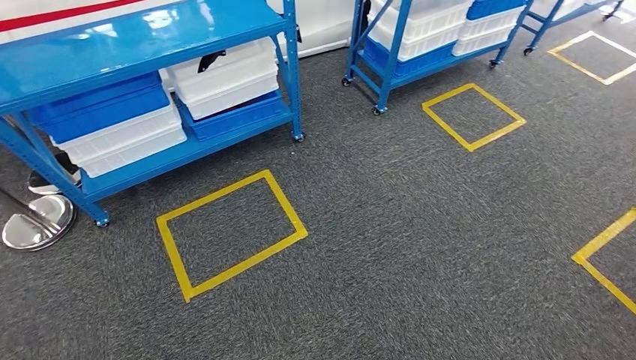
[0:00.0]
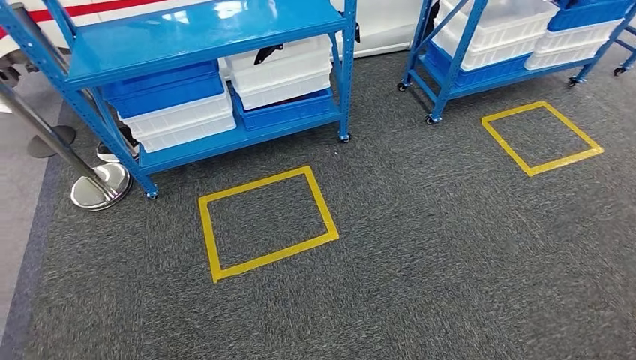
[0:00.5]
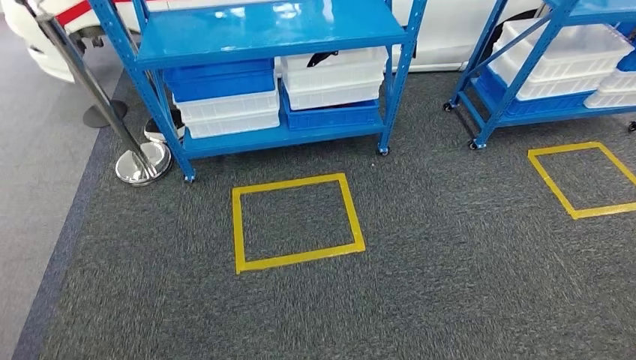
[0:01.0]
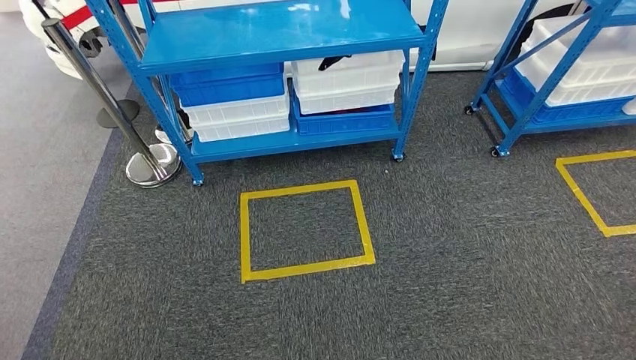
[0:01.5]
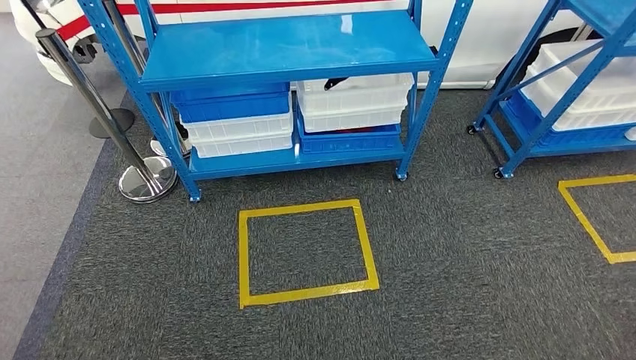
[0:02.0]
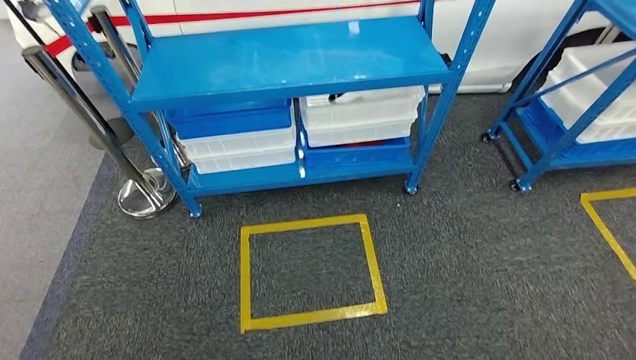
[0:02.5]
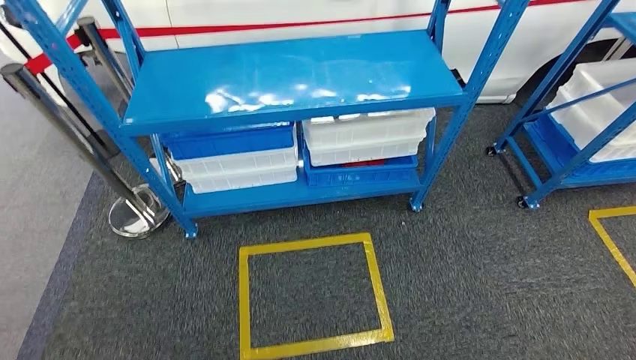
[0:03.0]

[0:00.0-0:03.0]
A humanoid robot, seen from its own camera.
Step, 0:00.0 to 0:03.0: Move to the initial position of the shelf.

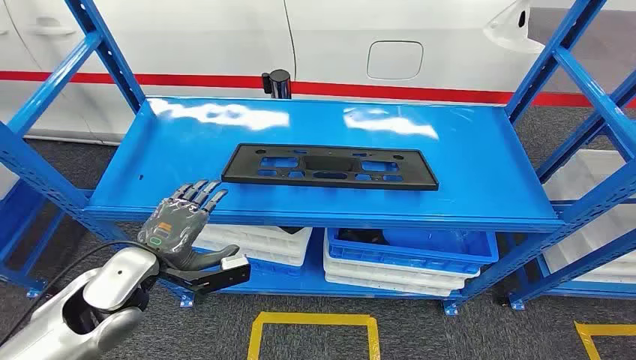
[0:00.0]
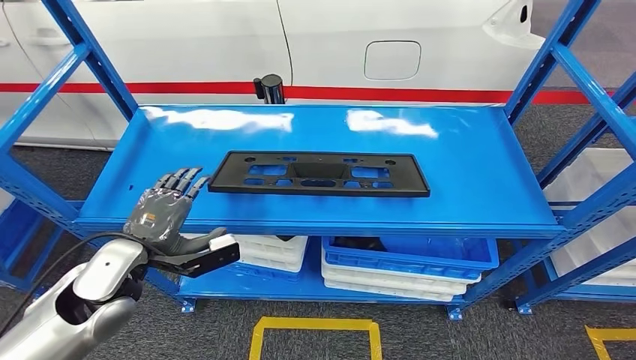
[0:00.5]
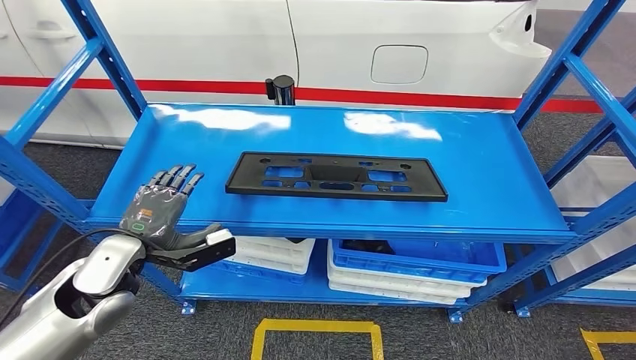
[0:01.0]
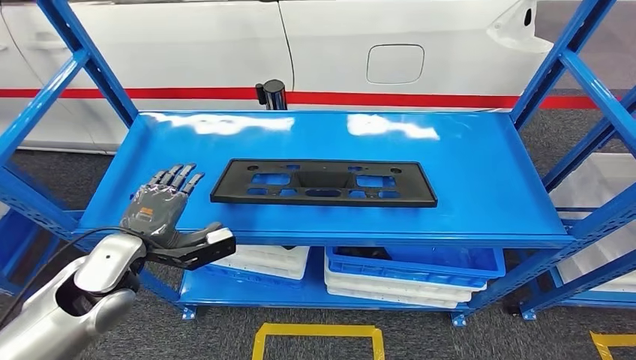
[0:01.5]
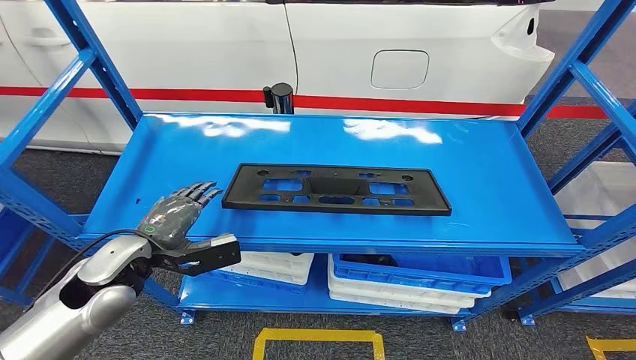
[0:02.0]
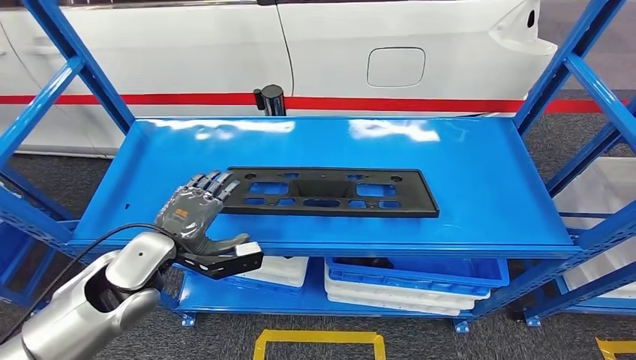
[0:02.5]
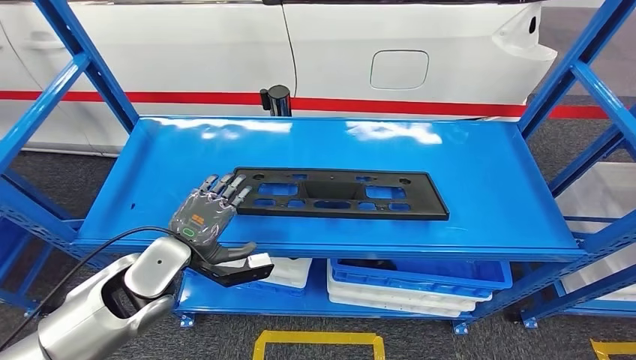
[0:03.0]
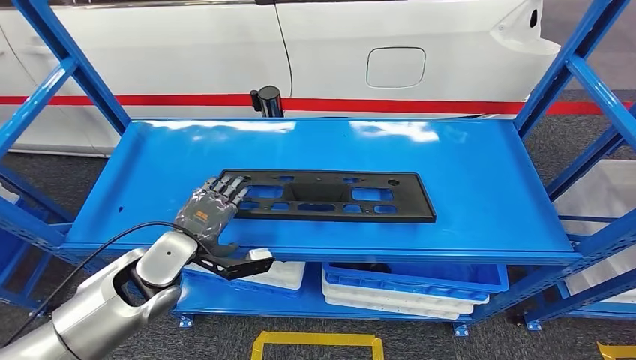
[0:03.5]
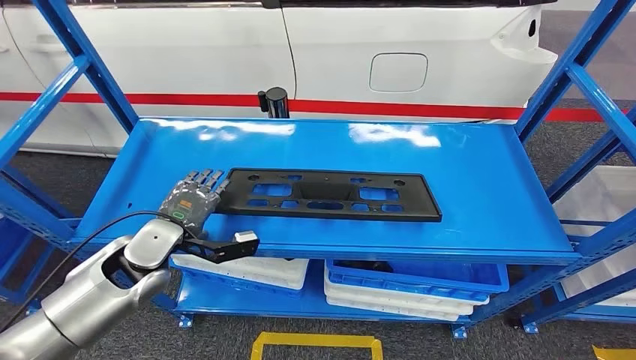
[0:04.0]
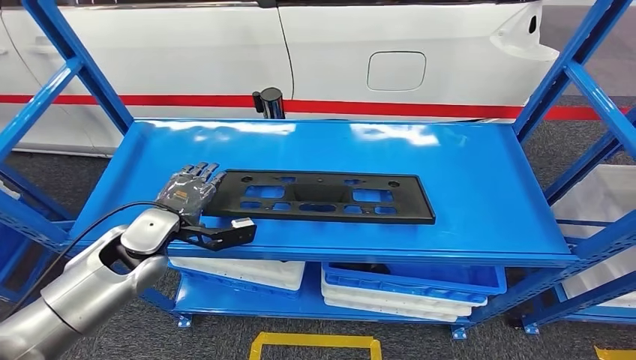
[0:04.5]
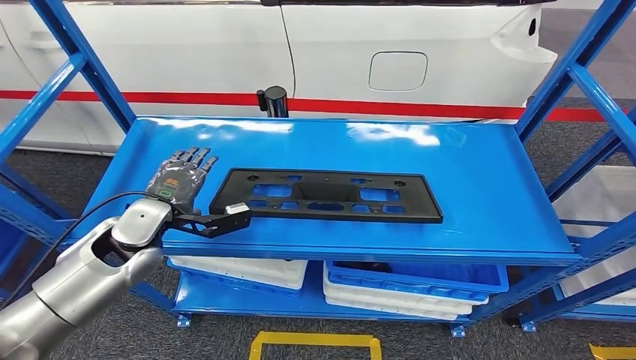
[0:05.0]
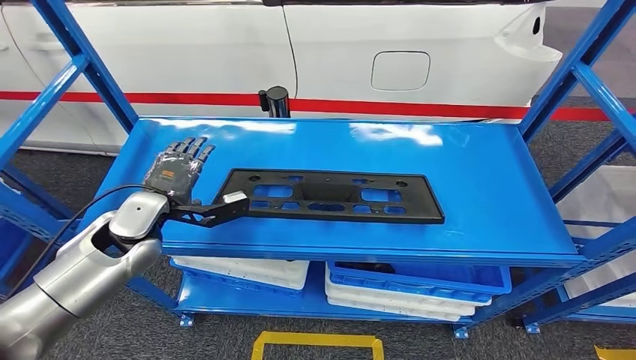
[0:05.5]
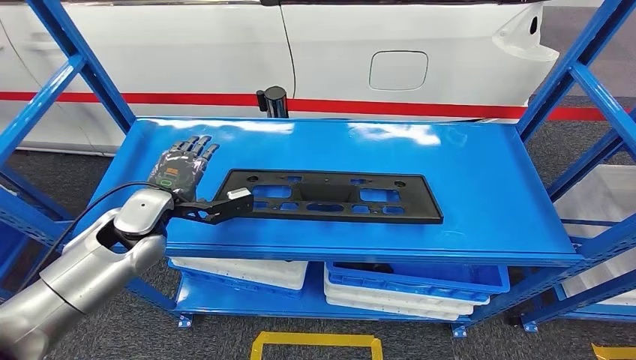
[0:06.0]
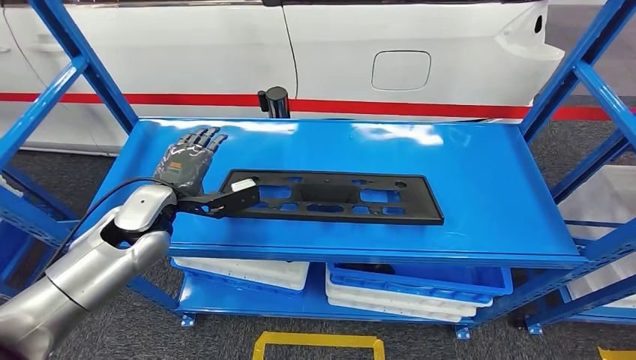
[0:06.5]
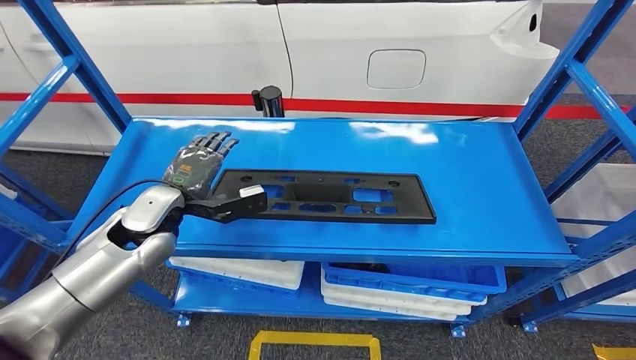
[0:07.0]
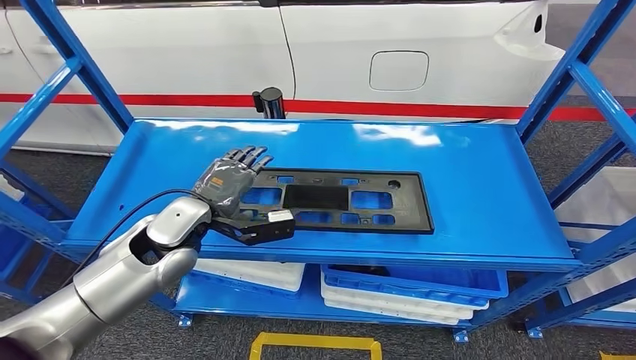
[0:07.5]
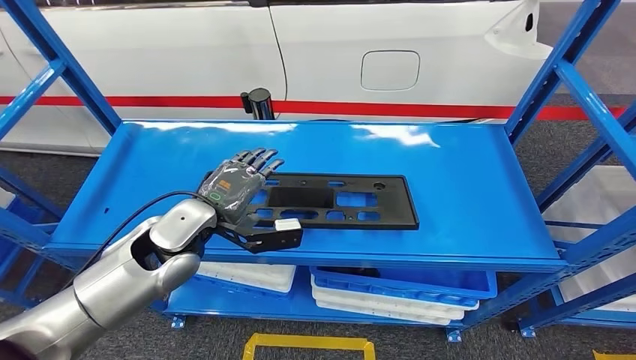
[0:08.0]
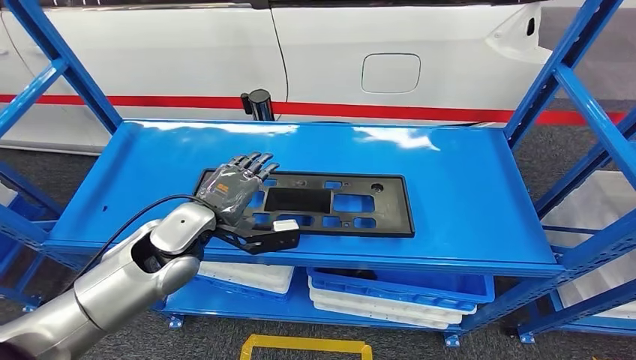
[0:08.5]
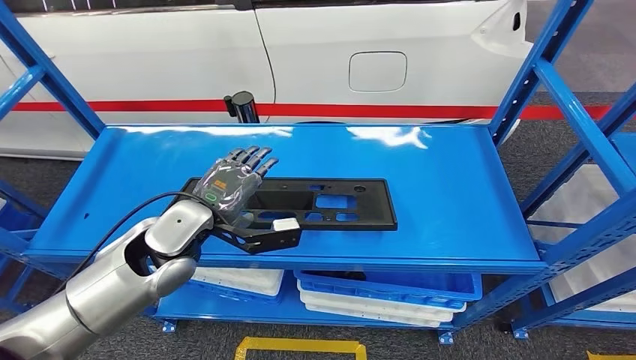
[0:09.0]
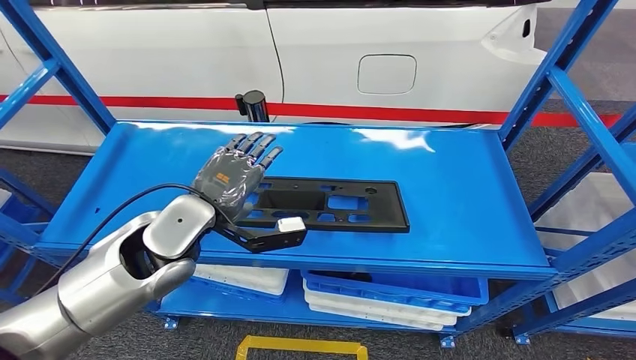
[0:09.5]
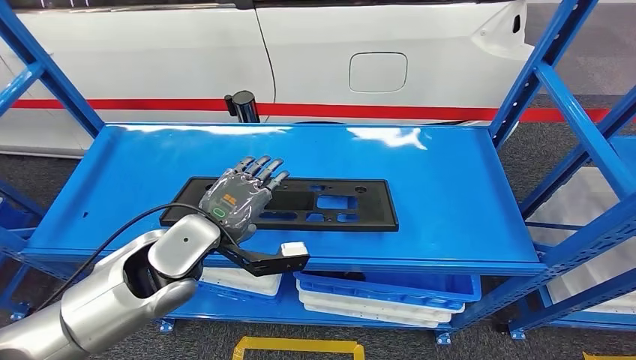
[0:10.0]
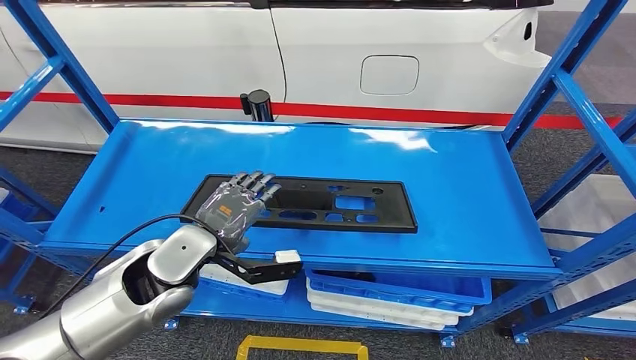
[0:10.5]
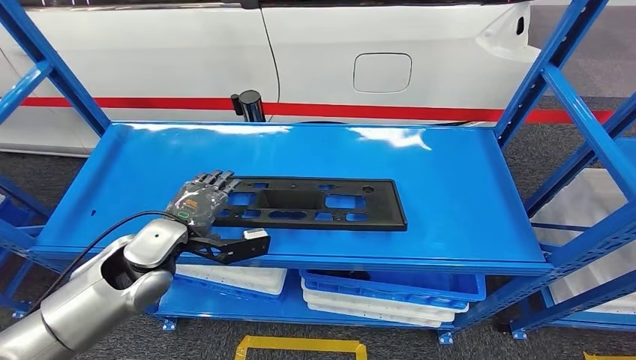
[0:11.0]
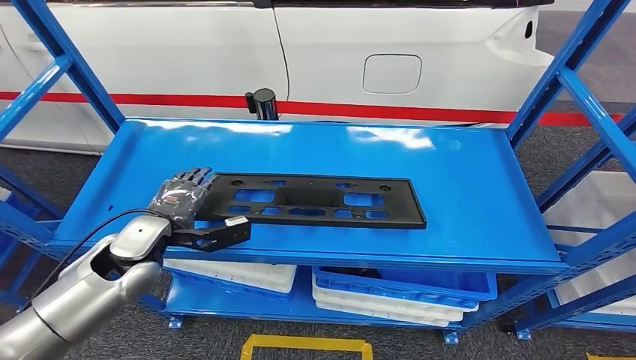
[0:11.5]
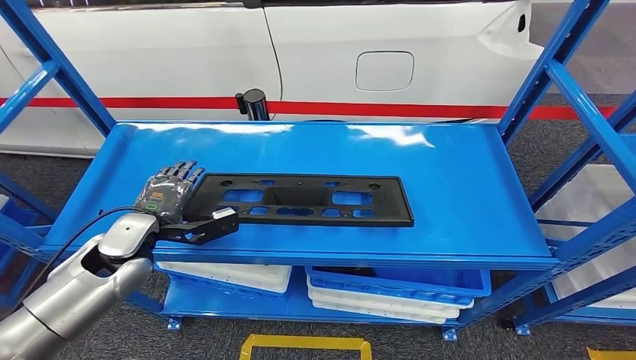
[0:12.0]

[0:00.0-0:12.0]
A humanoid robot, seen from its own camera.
0:04.0 to 0:06.0: The left hand moves roughly 5 cm.

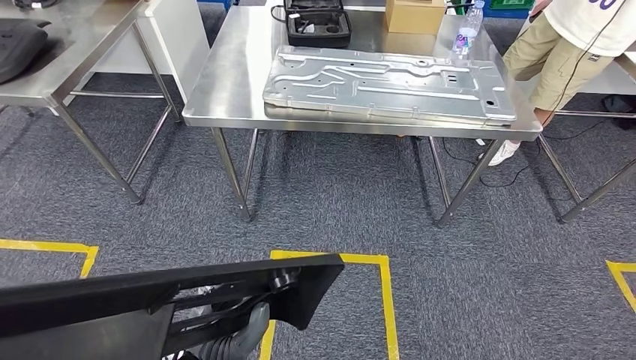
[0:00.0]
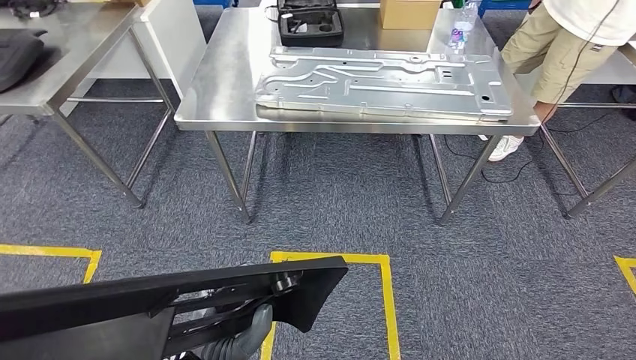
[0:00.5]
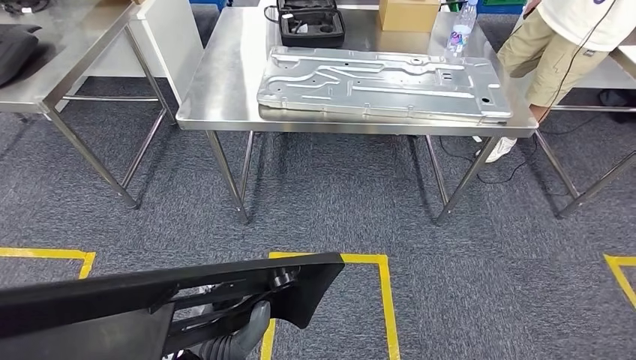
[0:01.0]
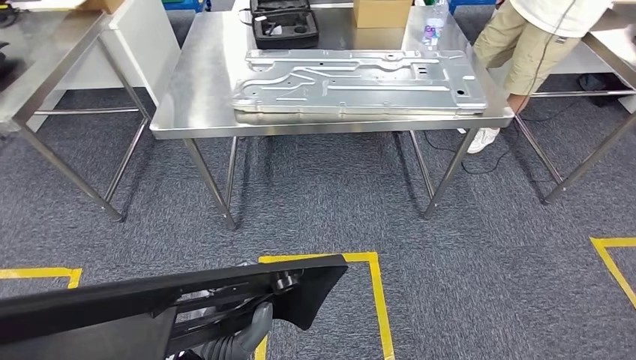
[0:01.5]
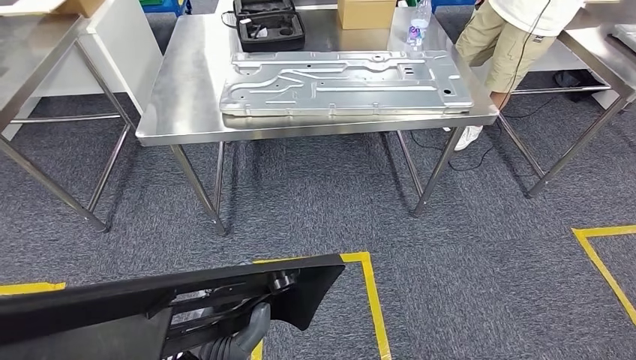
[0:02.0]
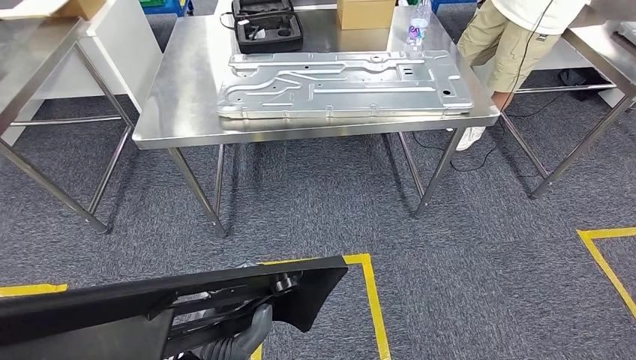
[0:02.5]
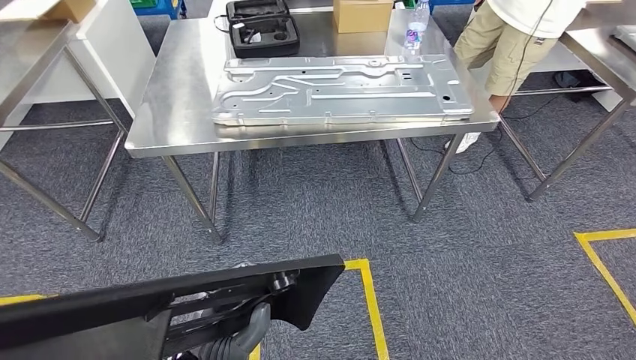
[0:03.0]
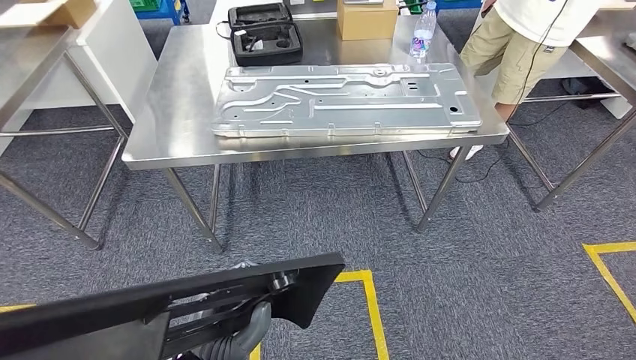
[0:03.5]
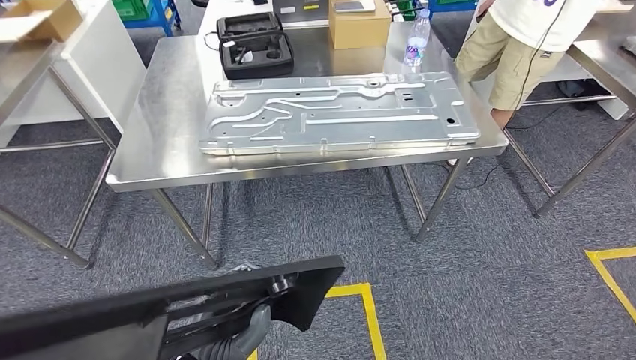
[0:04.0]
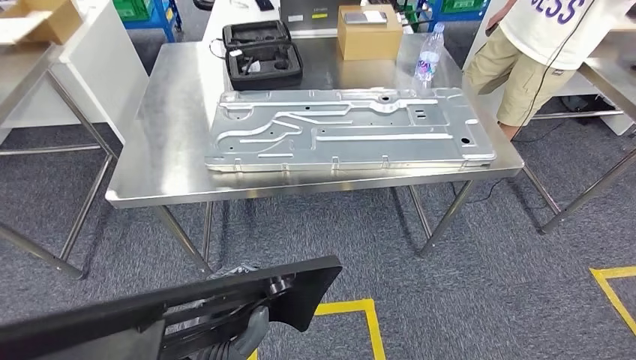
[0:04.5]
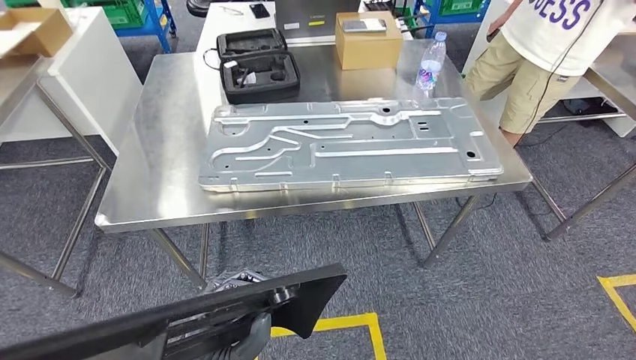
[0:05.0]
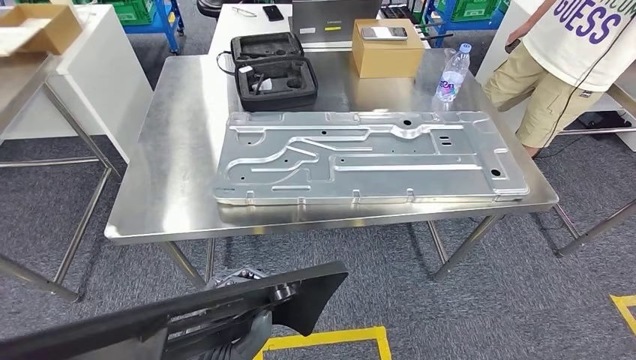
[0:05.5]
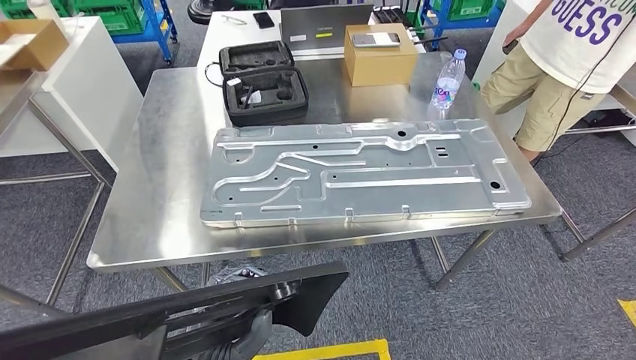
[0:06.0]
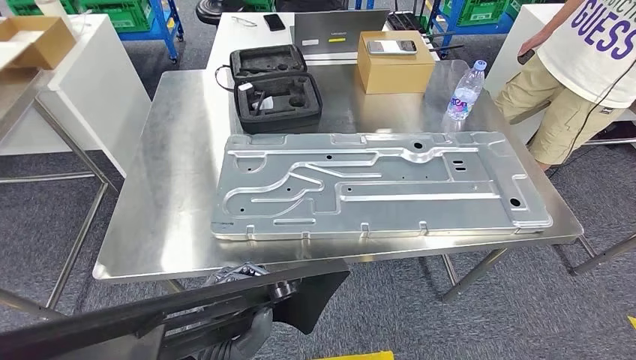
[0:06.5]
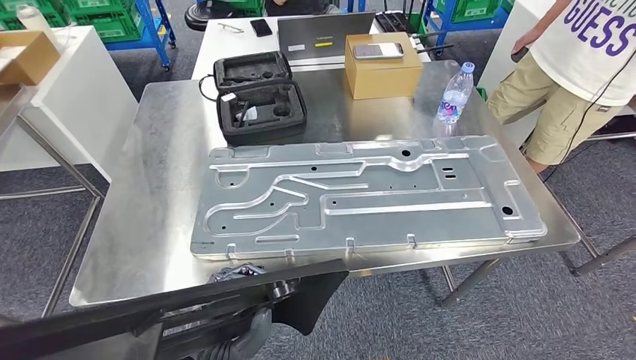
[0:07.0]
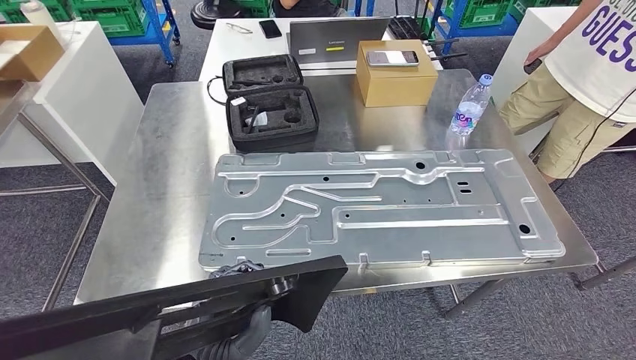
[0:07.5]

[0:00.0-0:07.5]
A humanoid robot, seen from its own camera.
Step, 0:00.0 to 0:05.0: Move the large material to the workbench.
